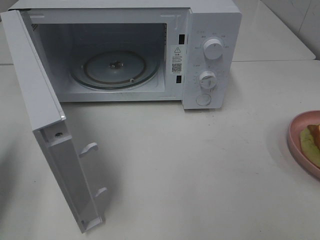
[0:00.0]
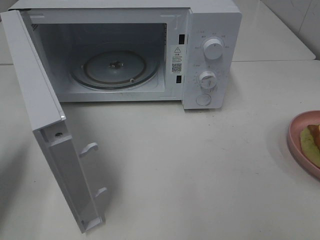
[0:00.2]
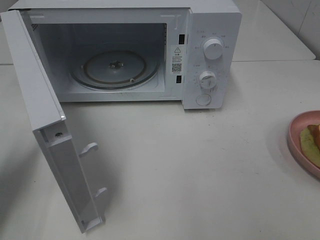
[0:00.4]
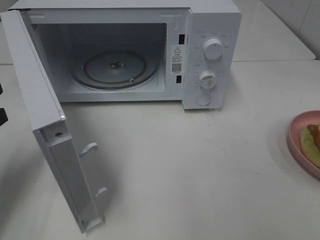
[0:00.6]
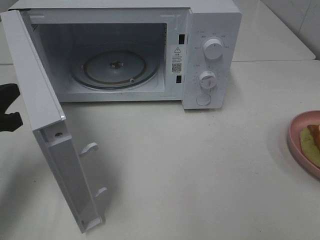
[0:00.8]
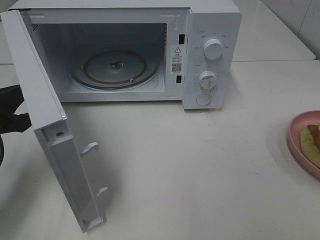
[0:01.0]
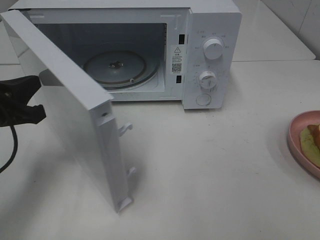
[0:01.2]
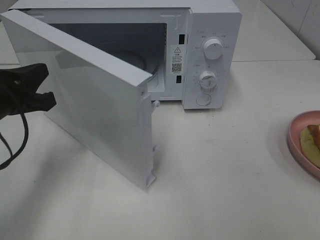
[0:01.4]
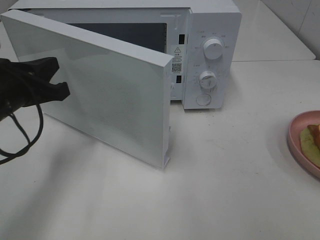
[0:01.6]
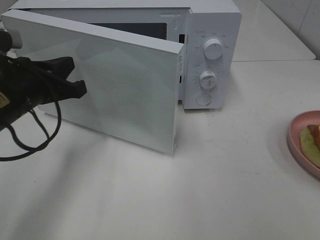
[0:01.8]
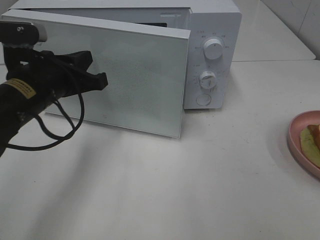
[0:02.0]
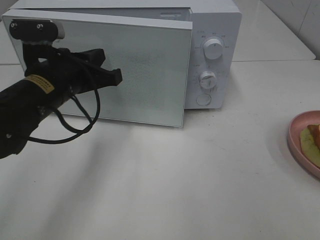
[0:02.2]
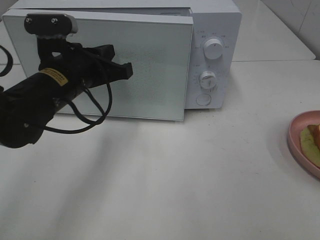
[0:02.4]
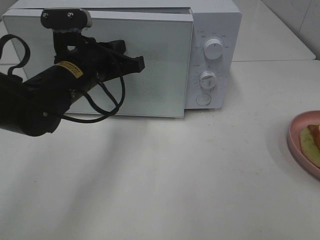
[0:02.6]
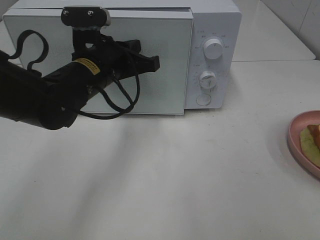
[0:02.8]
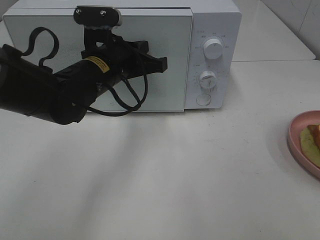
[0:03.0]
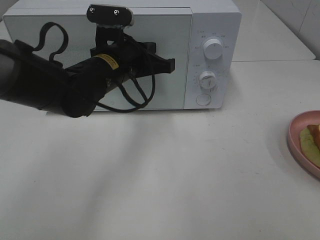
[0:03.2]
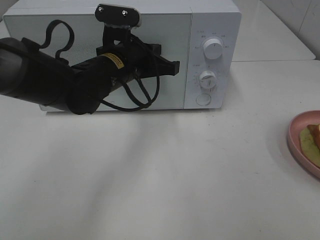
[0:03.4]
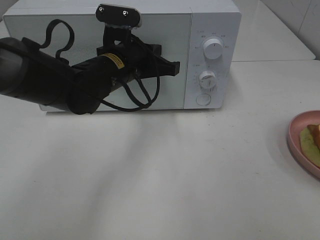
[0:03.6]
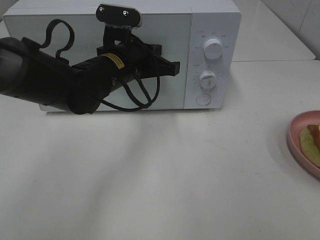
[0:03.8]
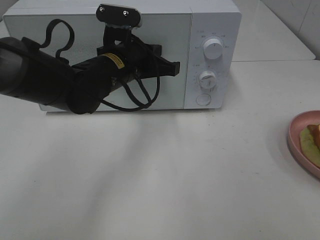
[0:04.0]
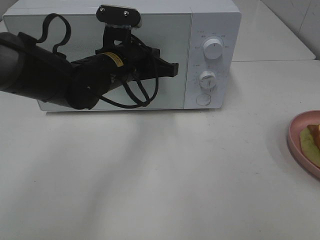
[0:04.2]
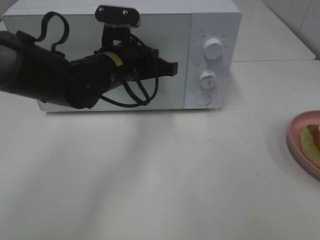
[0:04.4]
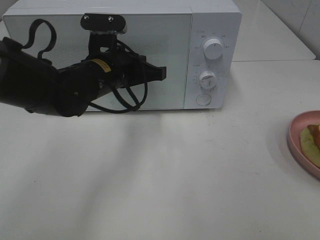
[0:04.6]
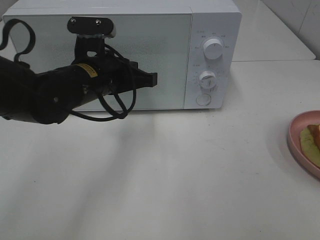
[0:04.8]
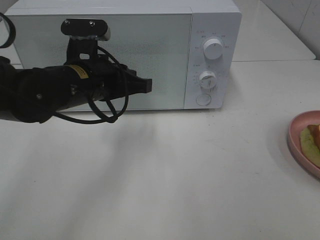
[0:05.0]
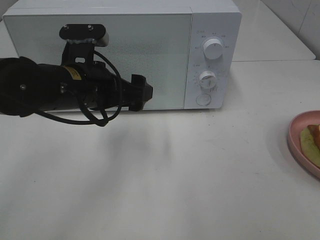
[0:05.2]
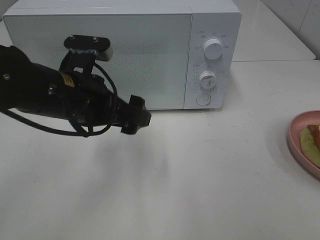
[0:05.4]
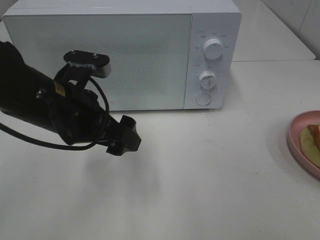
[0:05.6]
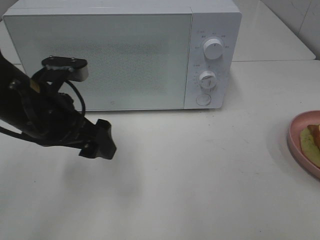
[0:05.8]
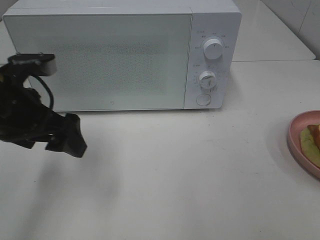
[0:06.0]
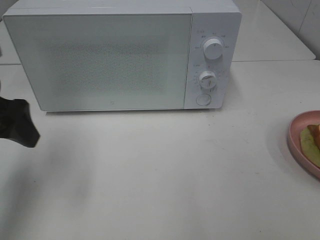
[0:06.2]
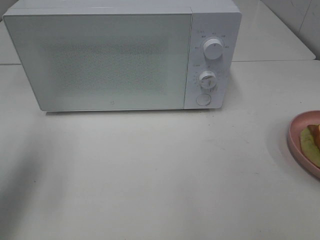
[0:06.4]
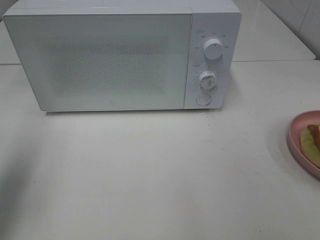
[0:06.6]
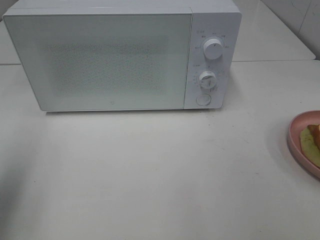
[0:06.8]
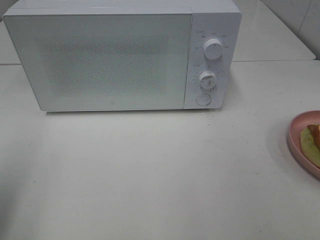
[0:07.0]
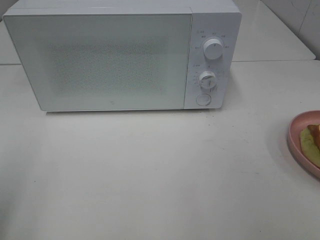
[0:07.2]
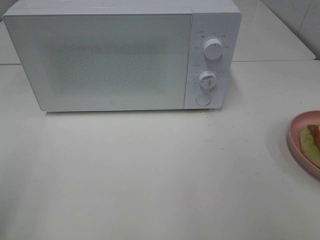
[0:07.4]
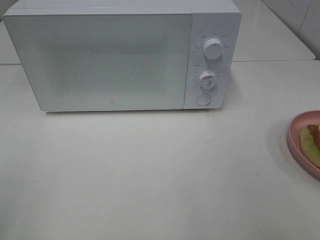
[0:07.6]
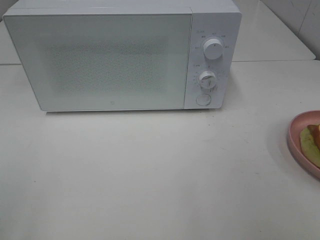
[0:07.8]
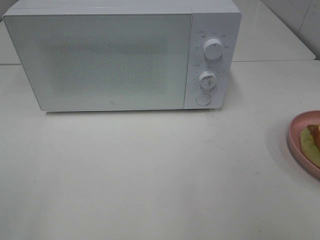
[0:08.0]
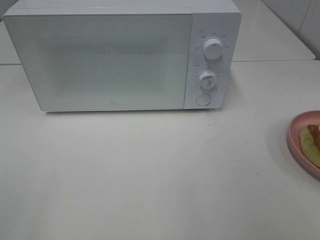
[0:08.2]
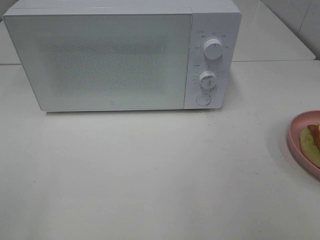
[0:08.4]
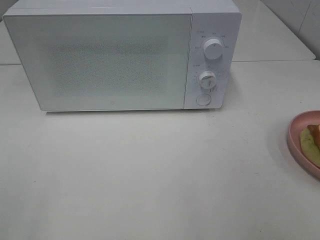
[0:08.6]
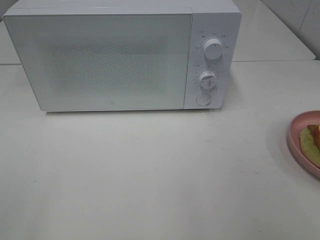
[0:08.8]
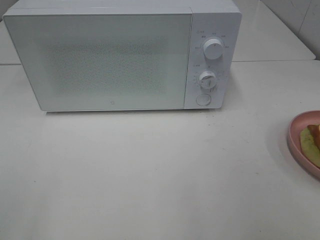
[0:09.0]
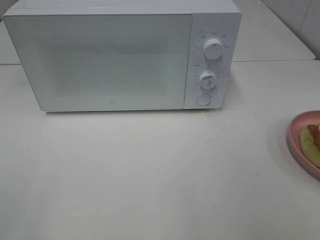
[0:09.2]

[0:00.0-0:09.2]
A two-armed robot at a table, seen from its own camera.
Task of the whole recording: Heat Sandwich.
Step, 0:00.0 to 0:04.8: Left hand: close the microwave door.
0:00.0 to 0:01.6: The left gripper moves to the right and forward, some 15 cm.
0:01.6 to 0:03.0: The left gripper goes about 15 cm to the right and forward.
0:03.0 to 0:04.6: The grippers stay close to where they were, moving slightly.
0:04.6 to 0:06.2: The left gripper goes approximately 20 cm to the left, backward and upward, and opens up.
0:06.2 to 0:07.6: The left gripper shifts approximately 20 cm backward.

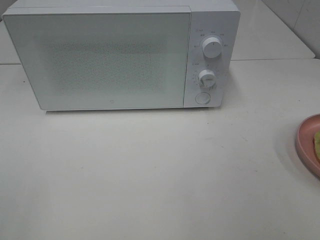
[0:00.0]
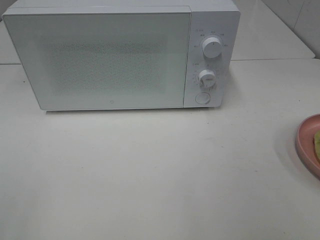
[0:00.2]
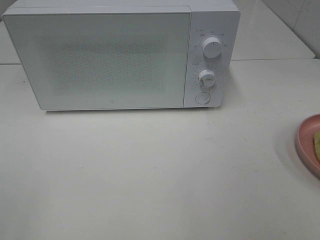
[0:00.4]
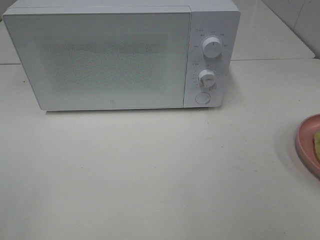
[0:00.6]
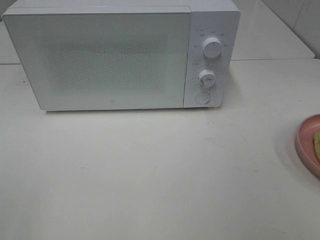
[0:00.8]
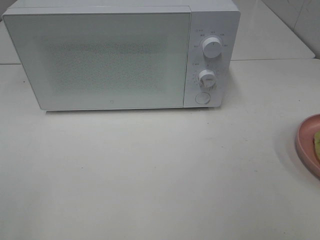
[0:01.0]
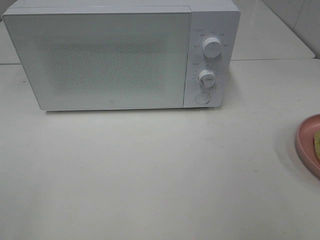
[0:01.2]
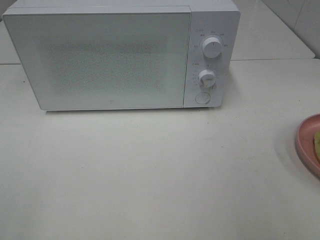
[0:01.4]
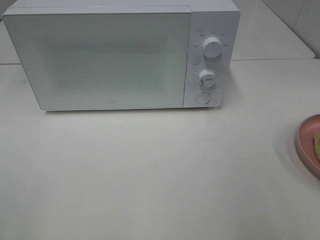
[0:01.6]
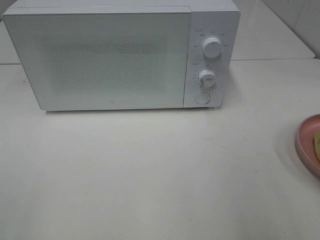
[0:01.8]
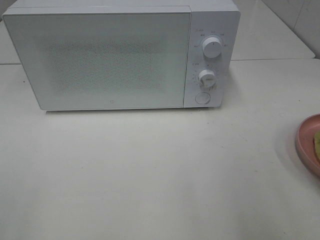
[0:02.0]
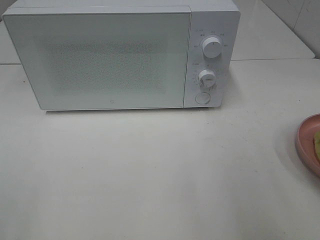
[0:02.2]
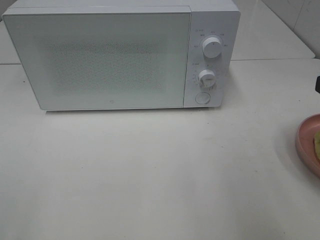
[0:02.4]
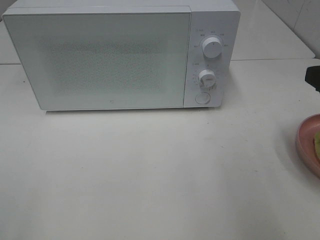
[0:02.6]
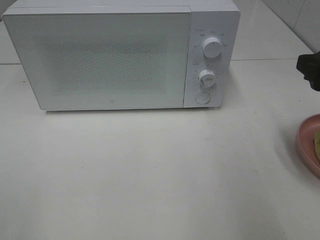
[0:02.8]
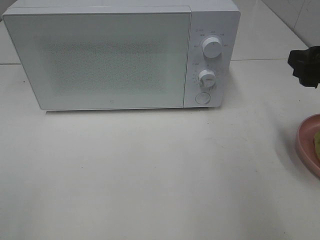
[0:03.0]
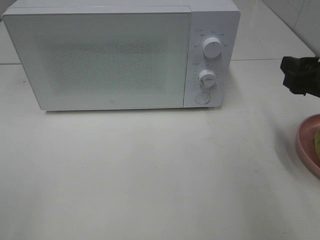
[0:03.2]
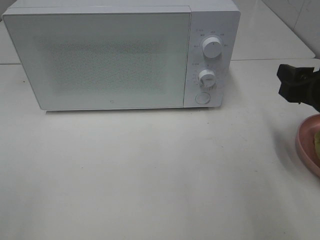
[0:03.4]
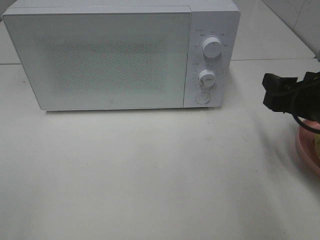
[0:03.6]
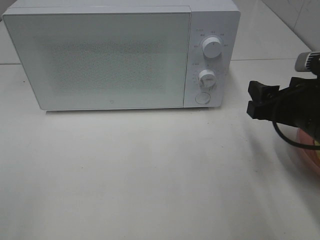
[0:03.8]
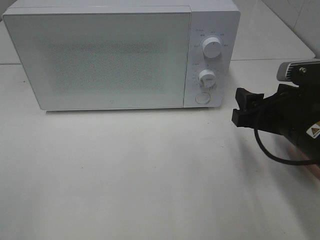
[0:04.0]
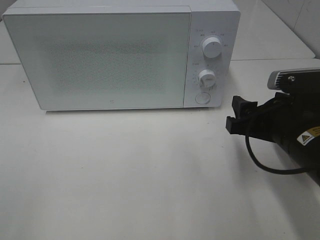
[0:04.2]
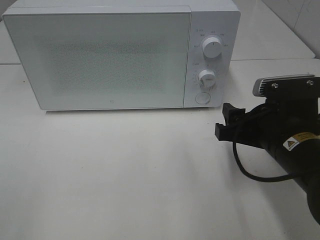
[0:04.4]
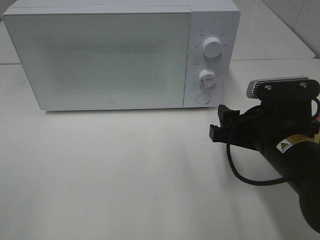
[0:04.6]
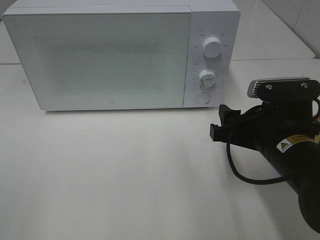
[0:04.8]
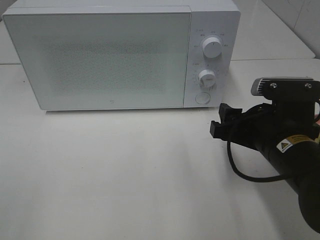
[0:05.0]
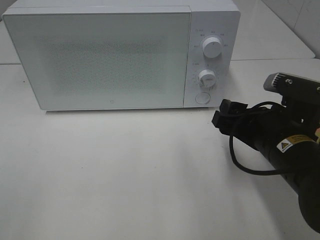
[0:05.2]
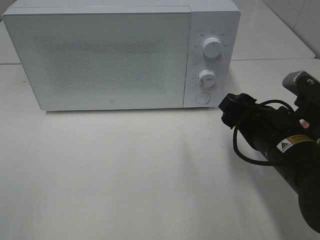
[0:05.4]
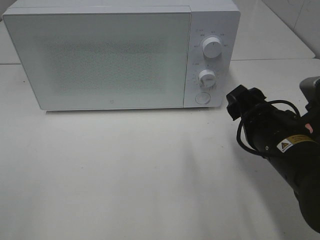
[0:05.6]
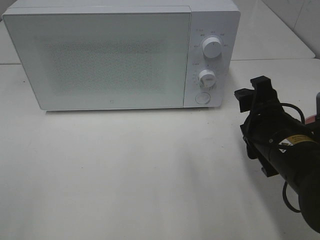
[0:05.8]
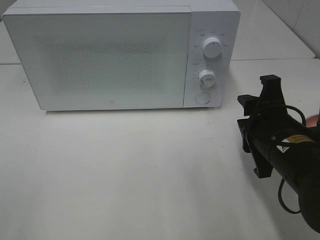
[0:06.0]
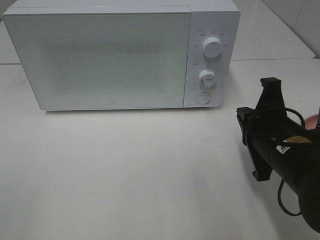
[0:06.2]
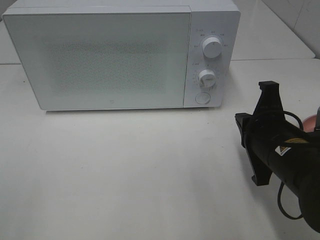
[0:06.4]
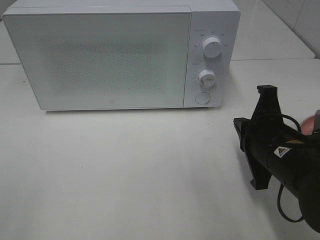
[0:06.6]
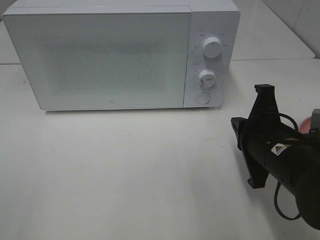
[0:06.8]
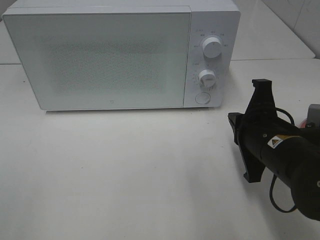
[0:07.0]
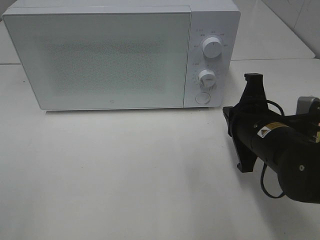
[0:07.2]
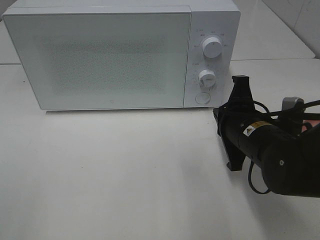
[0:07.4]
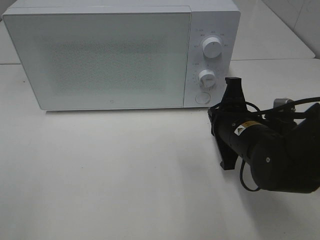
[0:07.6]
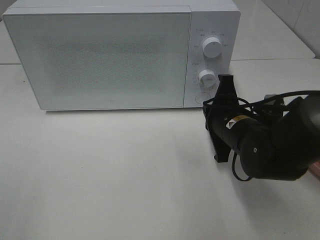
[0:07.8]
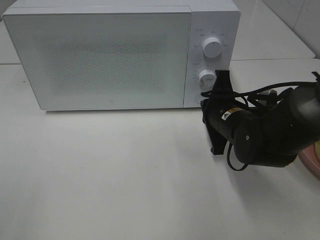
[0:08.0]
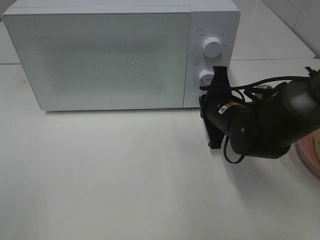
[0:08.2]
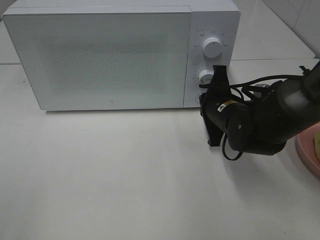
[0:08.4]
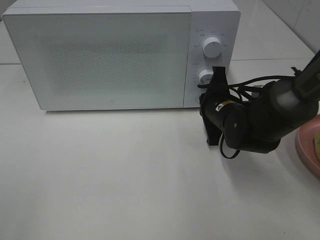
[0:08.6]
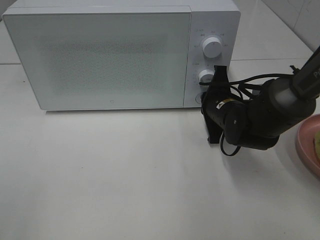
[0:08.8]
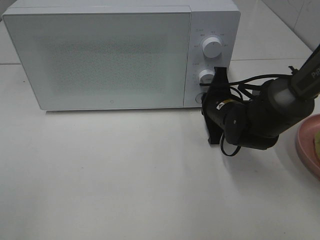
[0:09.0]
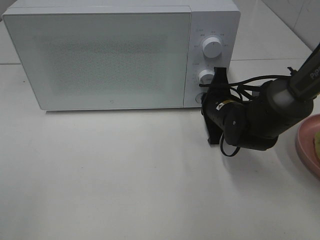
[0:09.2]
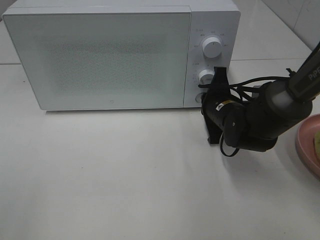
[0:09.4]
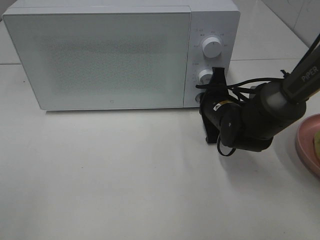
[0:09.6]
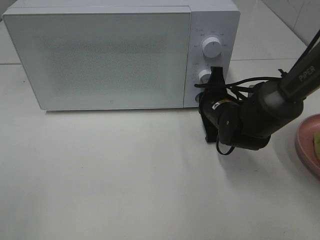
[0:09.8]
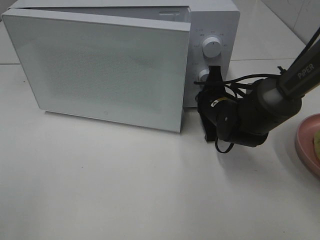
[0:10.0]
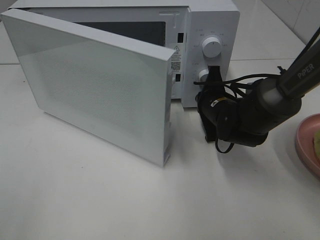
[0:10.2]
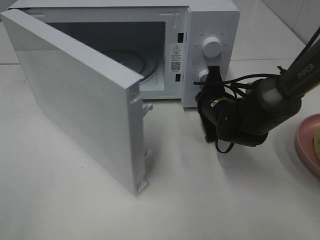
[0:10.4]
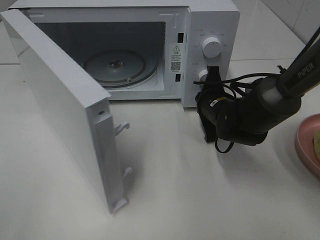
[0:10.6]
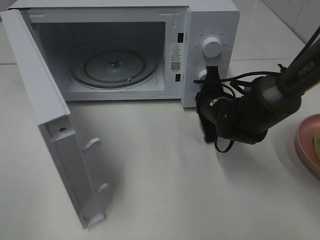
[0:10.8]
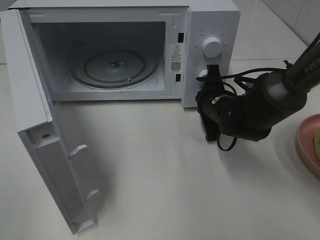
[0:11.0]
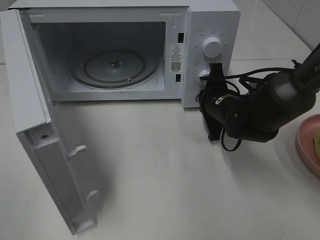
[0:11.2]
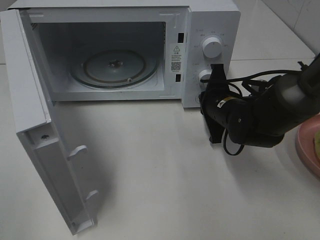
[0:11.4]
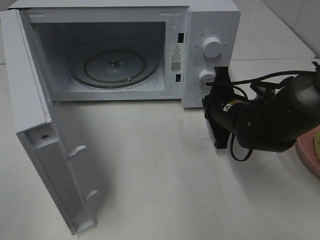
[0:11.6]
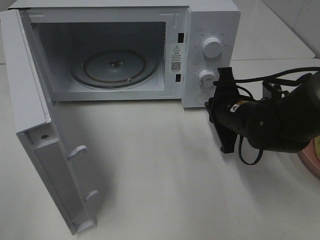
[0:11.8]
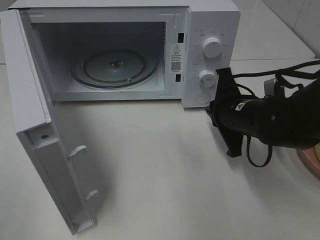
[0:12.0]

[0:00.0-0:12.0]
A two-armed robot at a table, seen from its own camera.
Task of the whole recording: Heat Sandwich.
Step, 0:00.0 to 0:11.4: Right hand: press the switch.
0:01.6 to 0:03.0: The right gripper goes some 15 cm forward.
0:03.0 to 0:04.4: The right gripper is displaced to the left and downward by roughly 15 cm.
0:06.0 to 0:07.6: The right gripper heads forward, covering roughly 5 cm, and closes its fingers.
0:07.6 to 0:09.0: The right gripper heads forward, covering some 10 cm.
0:10.4 to 0:12.0: The right gripper travels backward by roughly 5 cm.

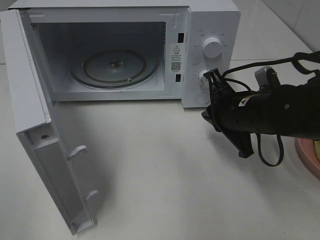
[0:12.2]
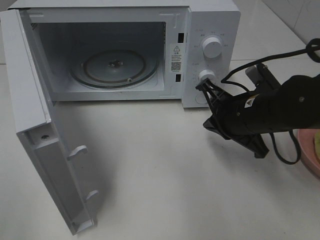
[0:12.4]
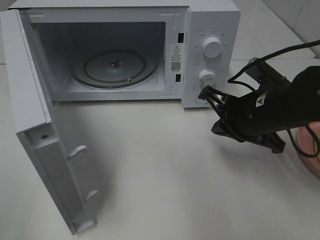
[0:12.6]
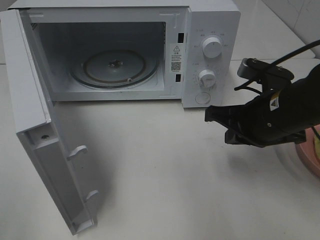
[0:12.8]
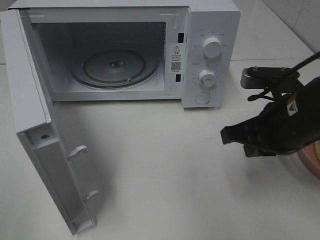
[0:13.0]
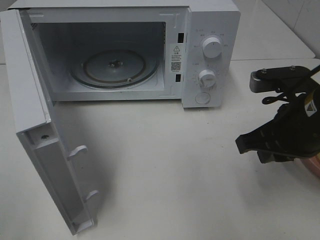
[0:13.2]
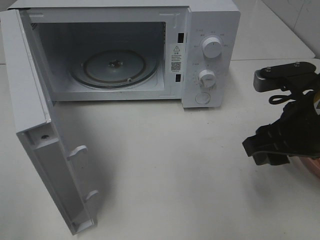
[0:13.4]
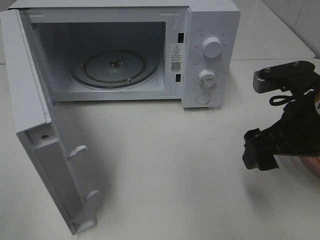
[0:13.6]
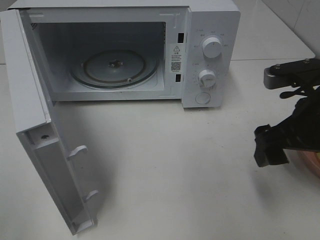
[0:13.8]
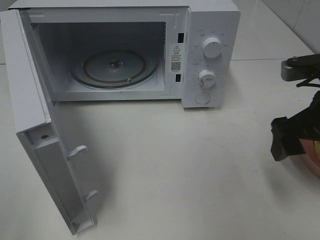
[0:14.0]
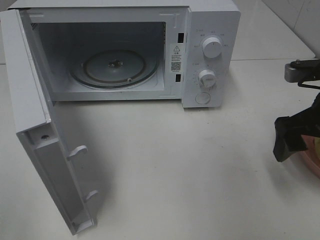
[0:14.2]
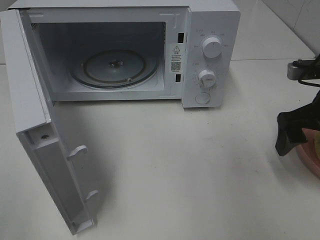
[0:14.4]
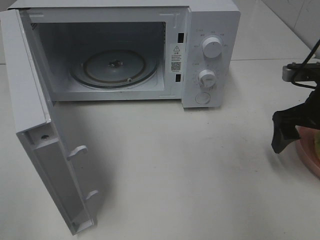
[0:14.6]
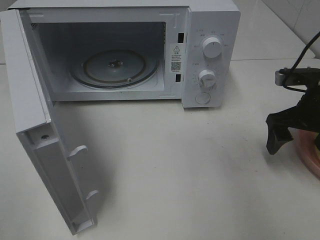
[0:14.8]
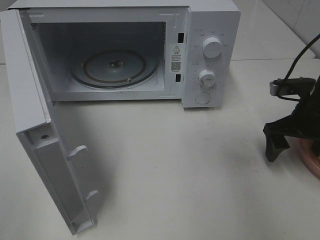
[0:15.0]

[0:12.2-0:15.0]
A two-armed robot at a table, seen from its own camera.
Task of the whole recording: Heat Sandwich.
0:12.2 to 0:13.6: The right gripper goes about 10 cm backward, upward and to the right, and opens.
0:13.6 to 0:15.0: The right gripper goes some 15 cm forward, to the right and downward.
